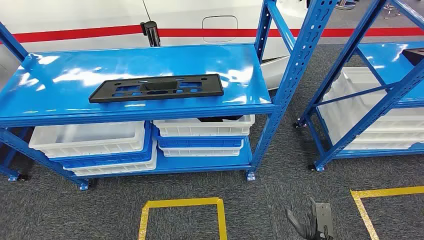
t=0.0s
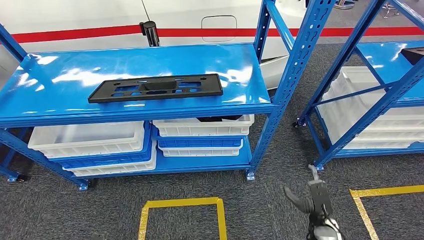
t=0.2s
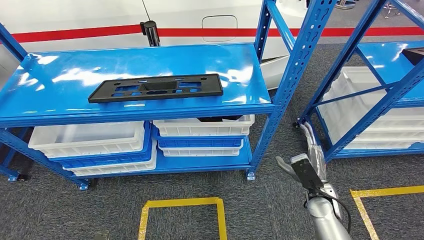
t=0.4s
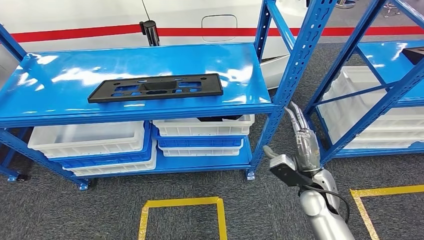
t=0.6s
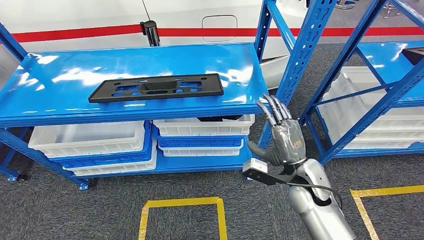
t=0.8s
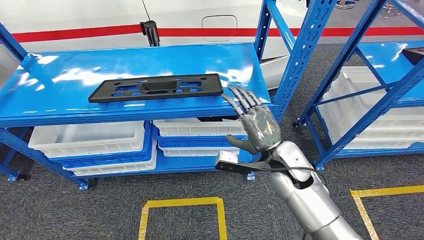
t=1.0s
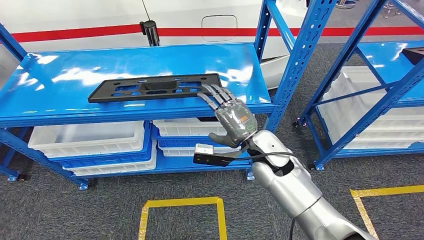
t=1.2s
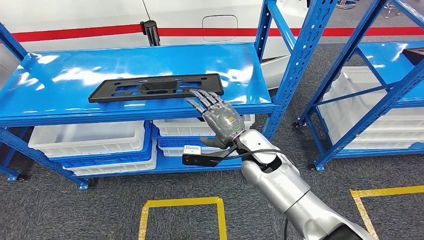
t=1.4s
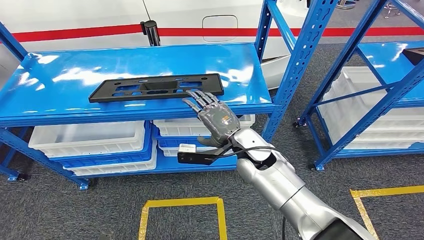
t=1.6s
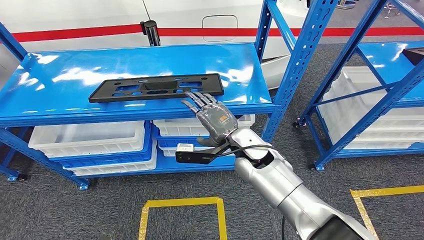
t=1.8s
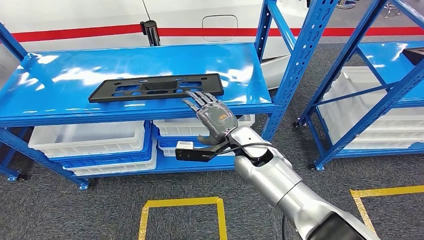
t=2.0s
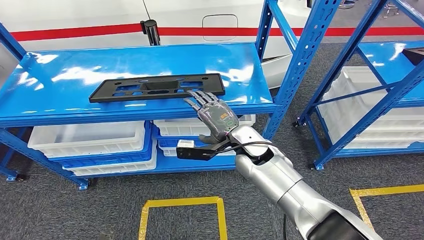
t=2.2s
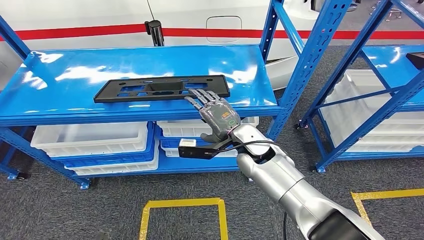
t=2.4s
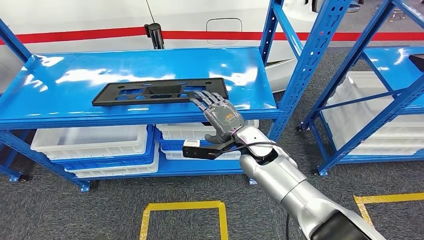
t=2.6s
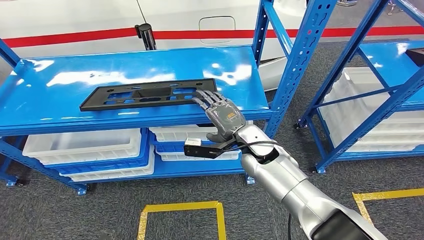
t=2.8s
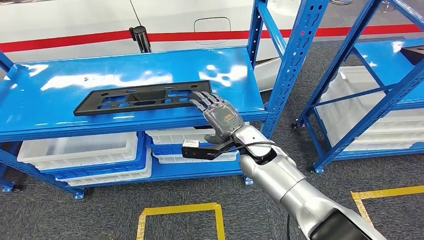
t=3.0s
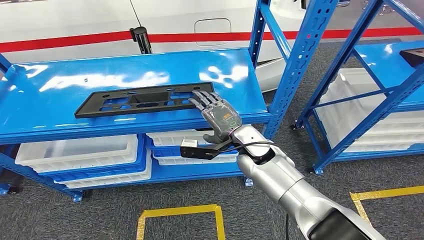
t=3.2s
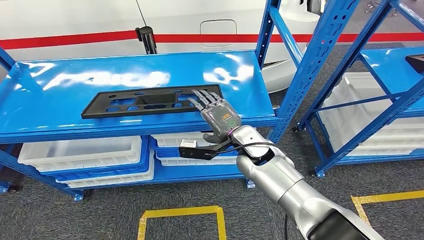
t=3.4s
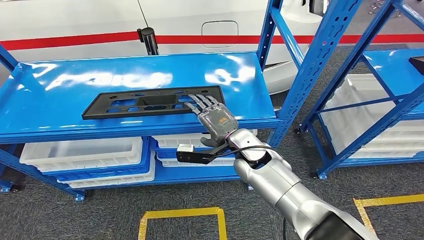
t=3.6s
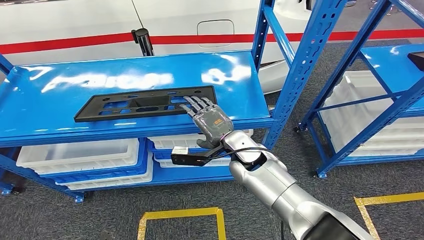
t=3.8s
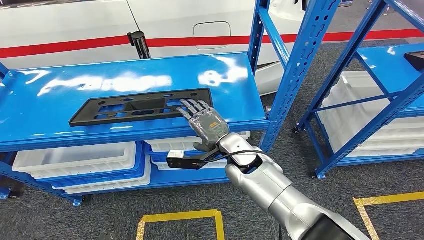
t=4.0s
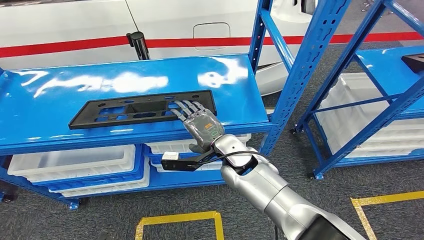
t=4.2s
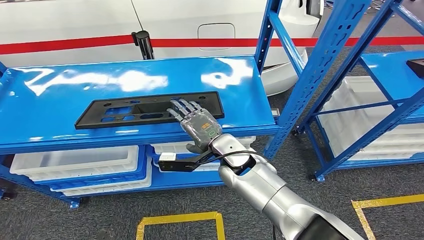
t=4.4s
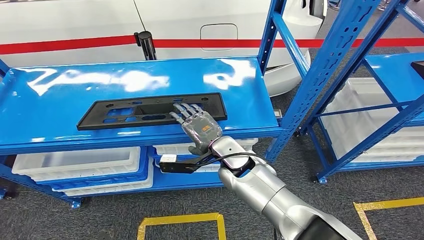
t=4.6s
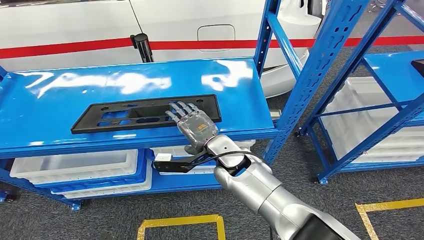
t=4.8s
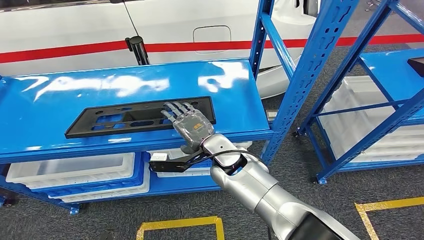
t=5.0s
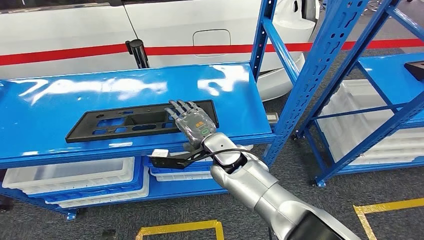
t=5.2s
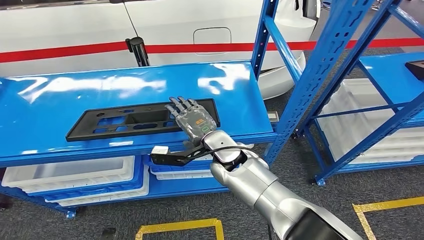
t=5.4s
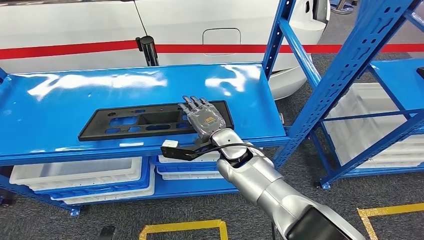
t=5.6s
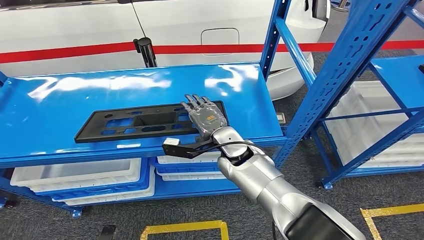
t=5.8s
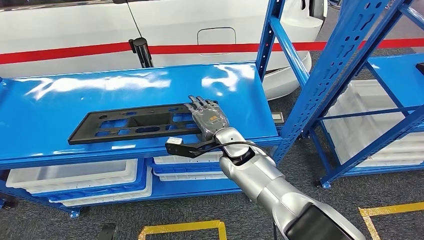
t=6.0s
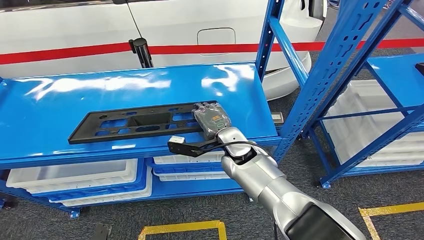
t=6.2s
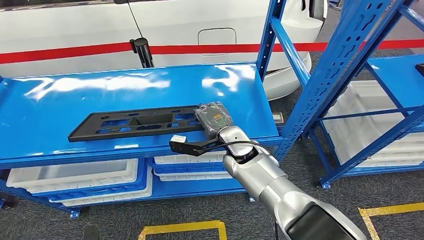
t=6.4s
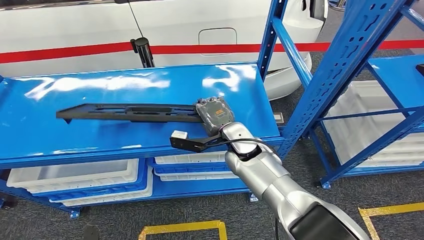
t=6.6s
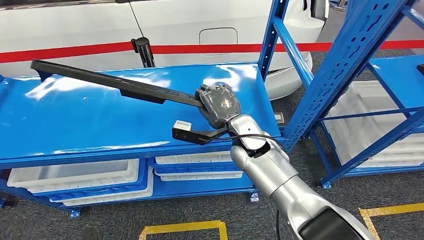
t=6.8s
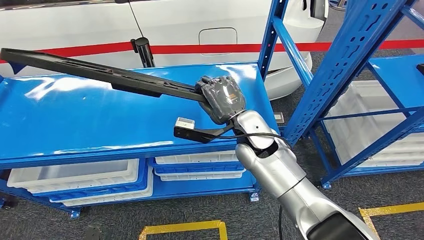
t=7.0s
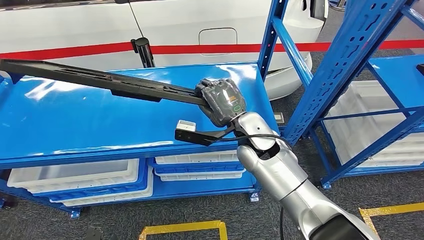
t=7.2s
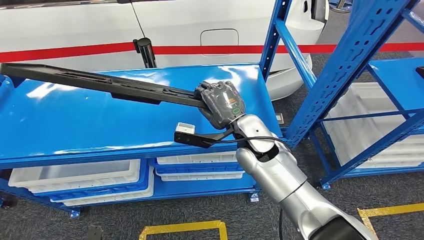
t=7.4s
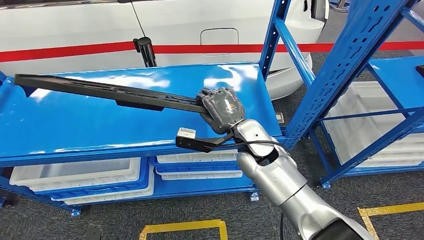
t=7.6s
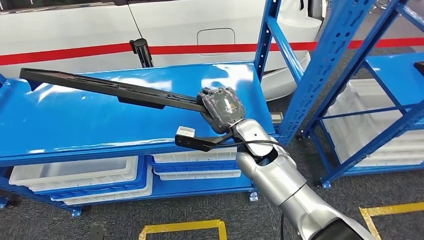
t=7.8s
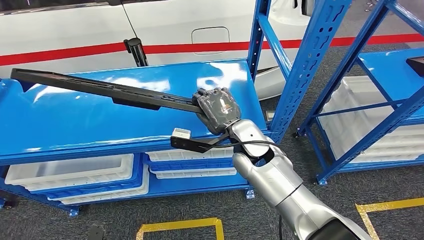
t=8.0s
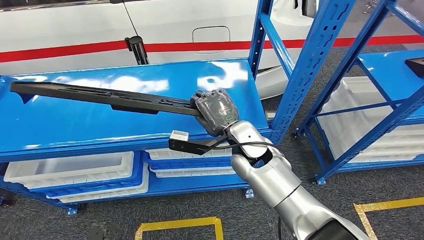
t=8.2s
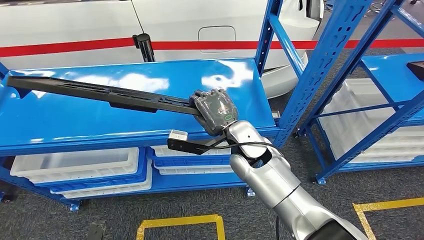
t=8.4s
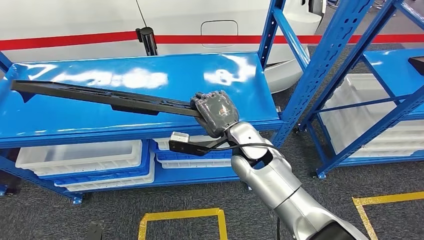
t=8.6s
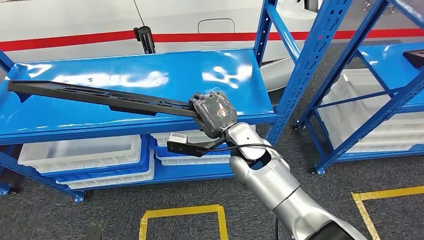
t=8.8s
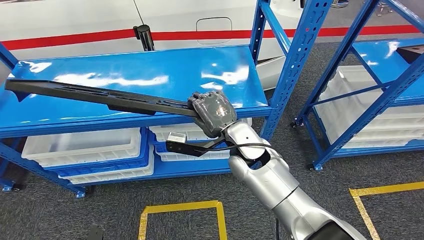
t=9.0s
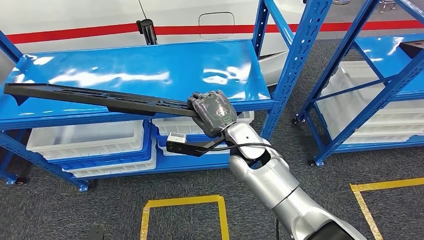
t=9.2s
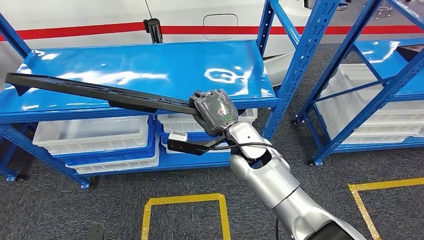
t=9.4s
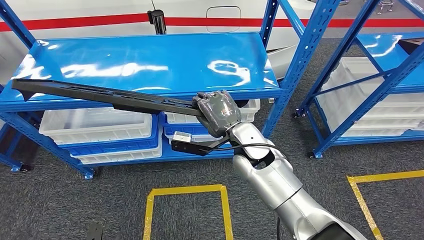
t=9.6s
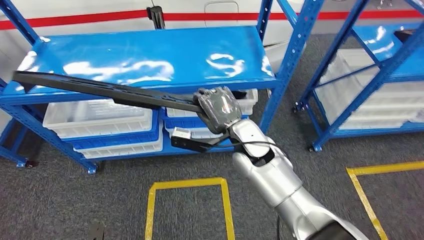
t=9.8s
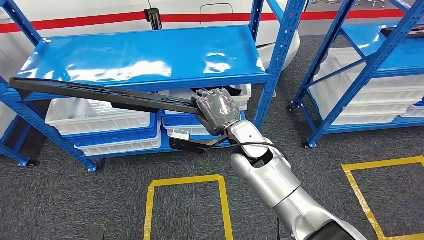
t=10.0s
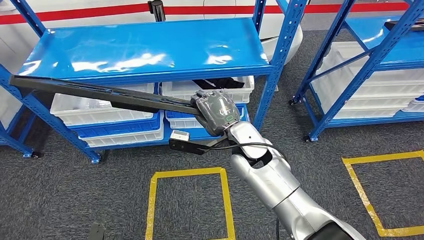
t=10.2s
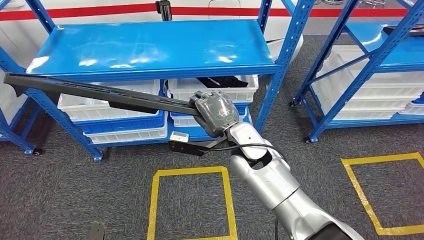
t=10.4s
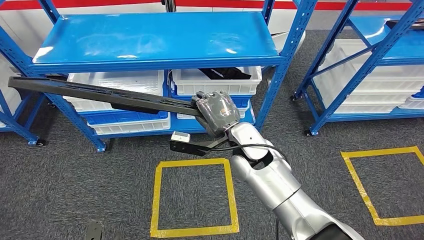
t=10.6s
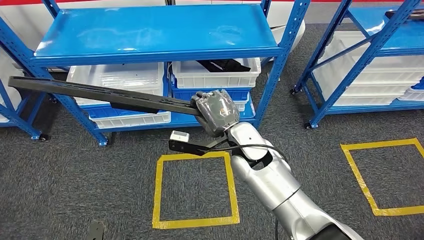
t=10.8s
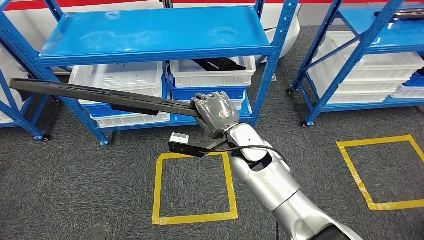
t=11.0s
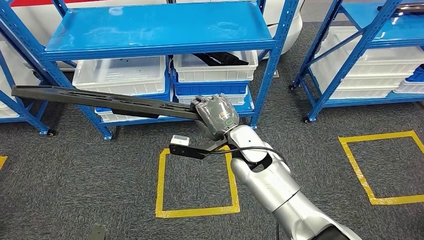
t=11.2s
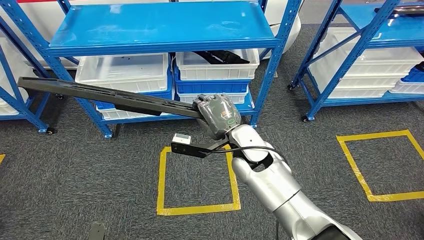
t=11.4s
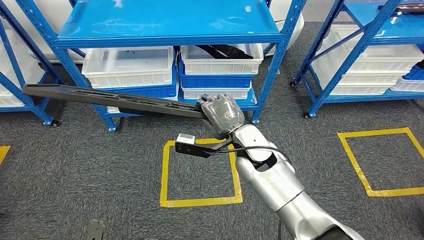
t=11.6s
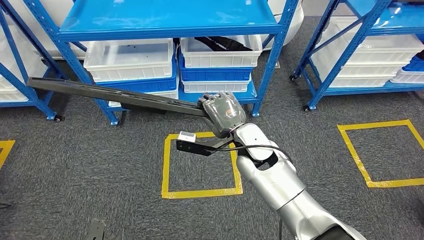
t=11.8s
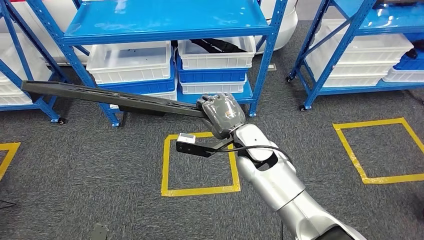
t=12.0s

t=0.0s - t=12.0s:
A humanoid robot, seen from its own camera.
Step, t=0.0s - t=8.8s: Pick up the large material from the shelf.

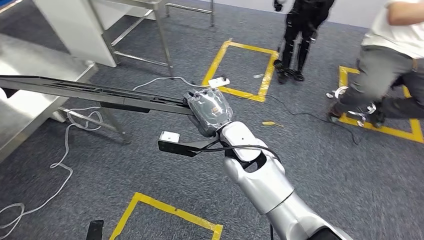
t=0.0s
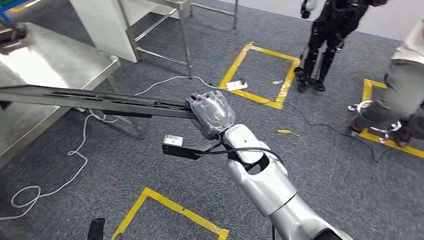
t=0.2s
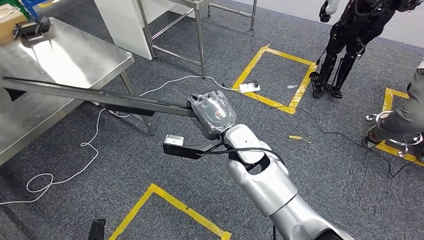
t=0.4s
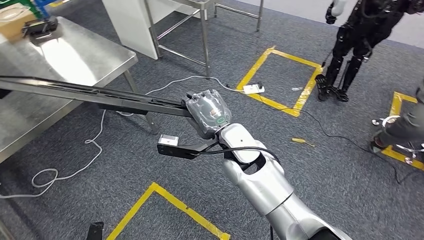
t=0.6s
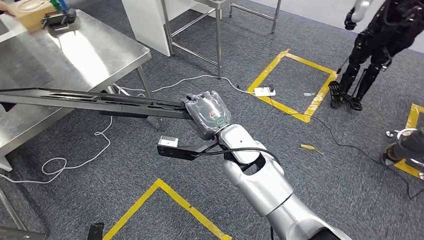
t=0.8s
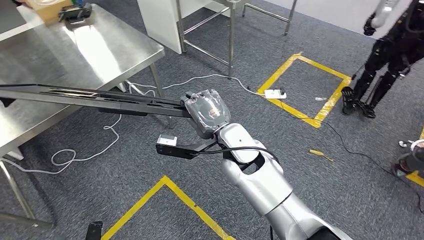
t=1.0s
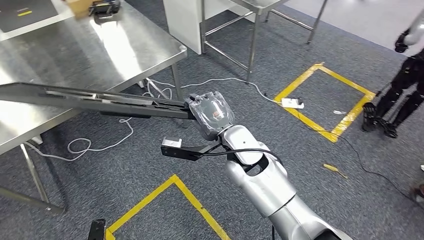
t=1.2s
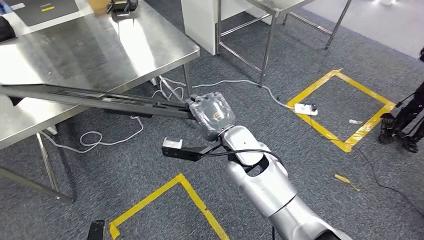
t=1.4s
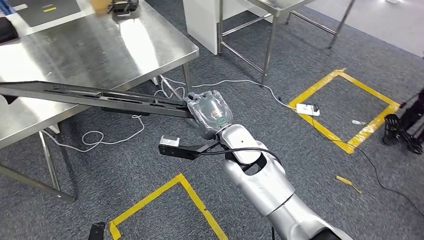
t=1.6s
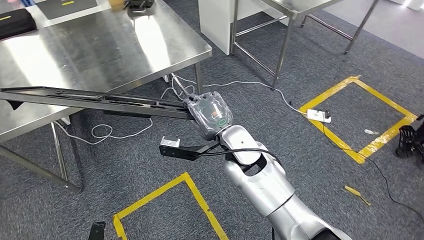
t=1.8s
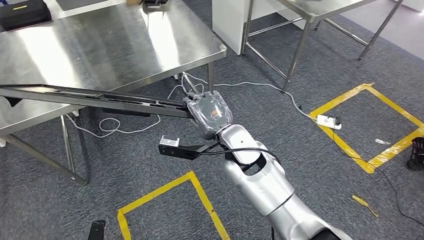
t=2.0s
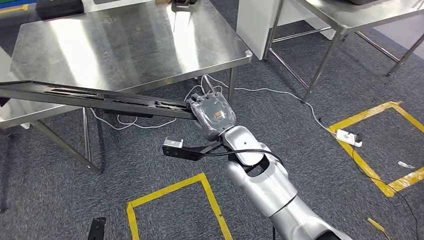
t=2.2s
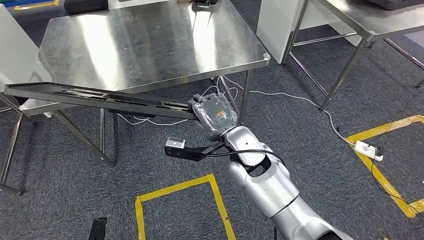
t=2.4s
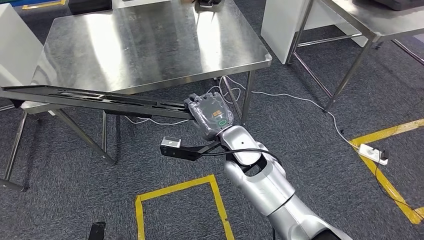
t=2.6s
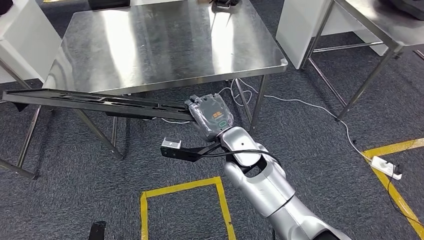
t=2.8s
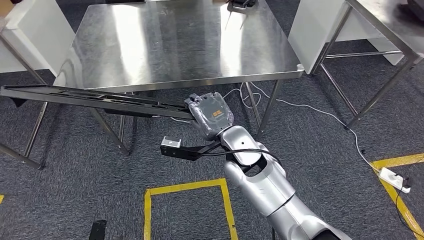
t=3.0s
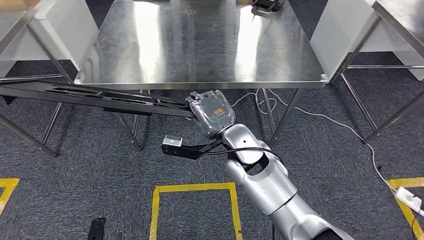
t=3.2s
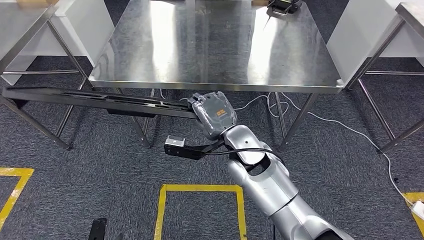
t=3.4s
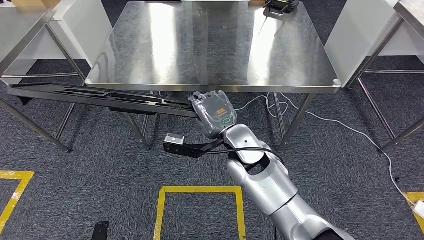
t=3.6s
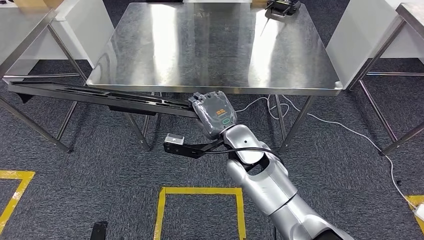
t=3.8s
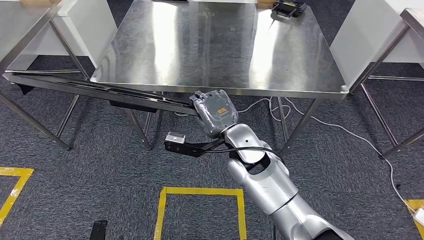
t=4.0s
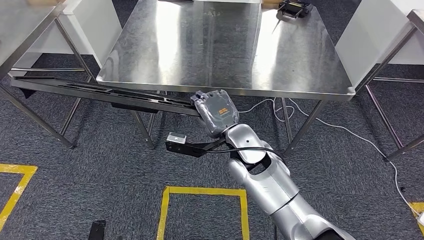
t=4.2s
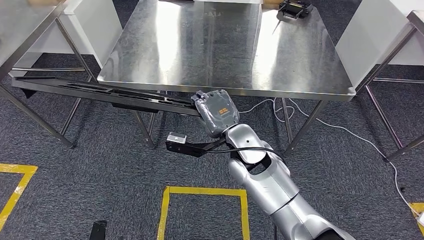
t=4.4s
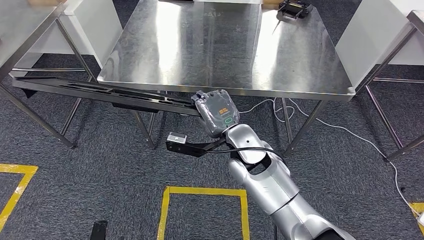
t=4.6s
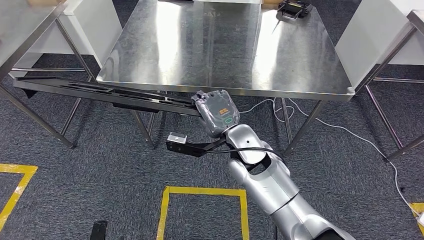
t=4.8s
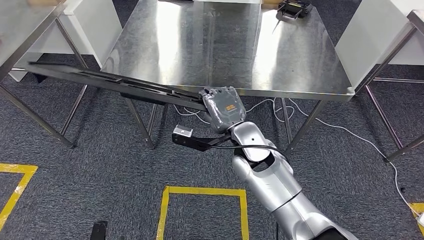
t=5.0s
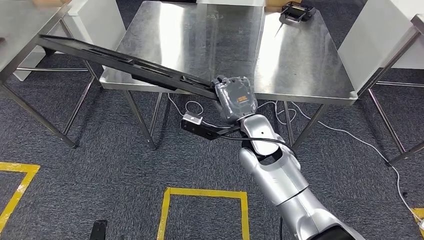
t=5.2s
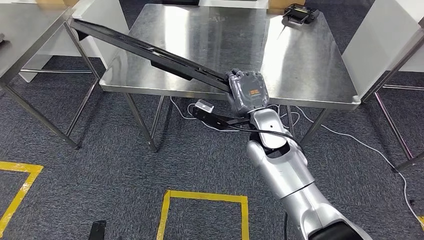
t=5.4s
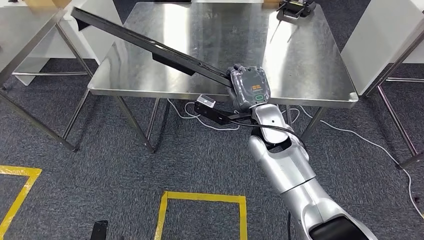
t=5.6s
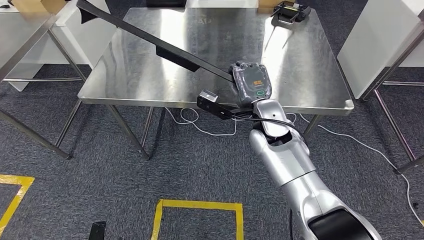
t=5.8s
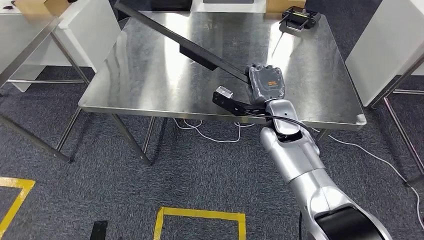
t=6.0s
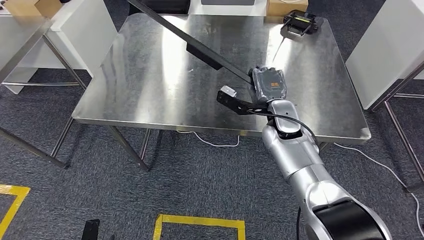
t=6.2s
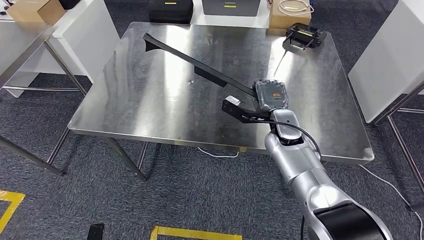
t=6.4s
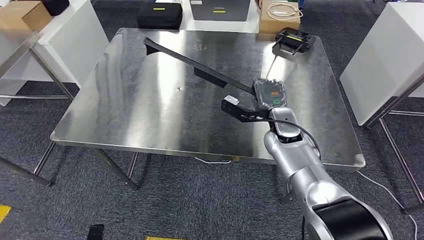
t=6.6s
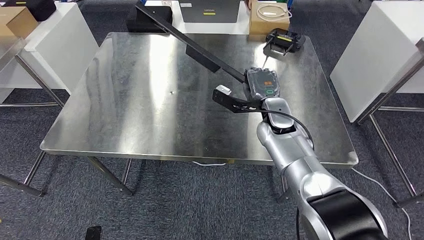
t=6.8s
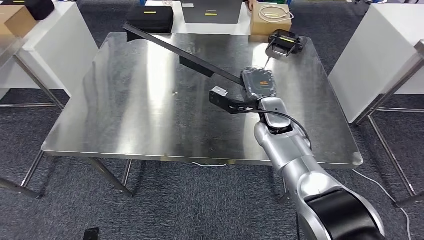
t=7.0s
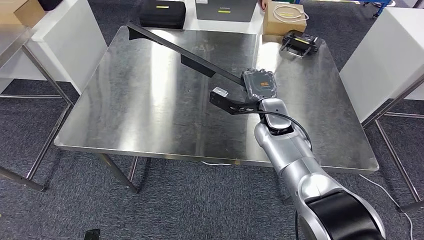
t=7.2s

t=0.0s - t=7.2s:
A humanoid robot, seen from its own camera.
Step, t=0.0s - t=4.4s: Move the large material to the workbench.
